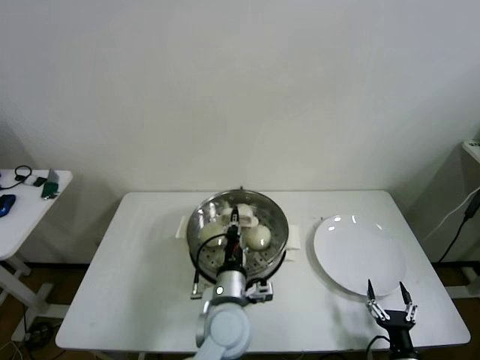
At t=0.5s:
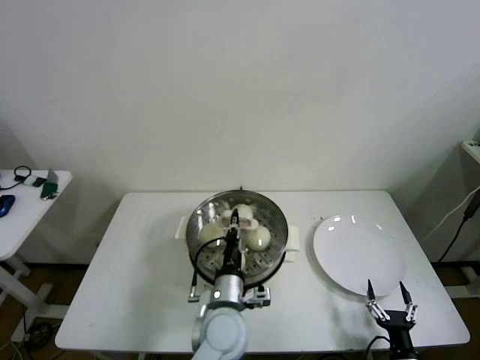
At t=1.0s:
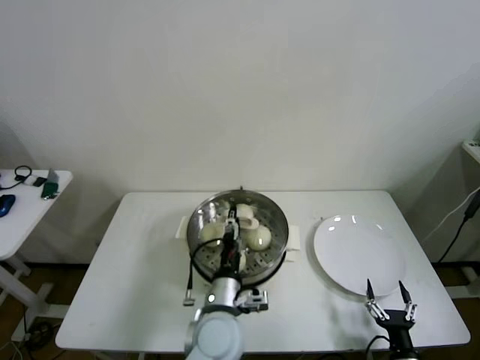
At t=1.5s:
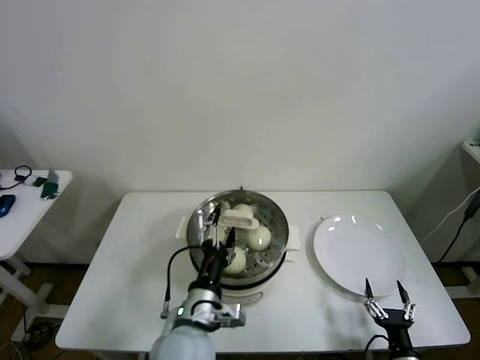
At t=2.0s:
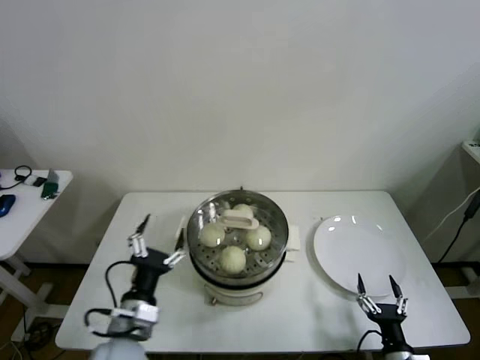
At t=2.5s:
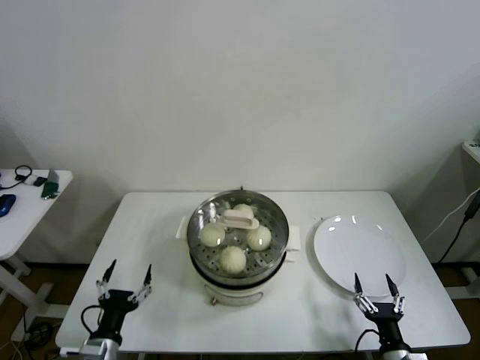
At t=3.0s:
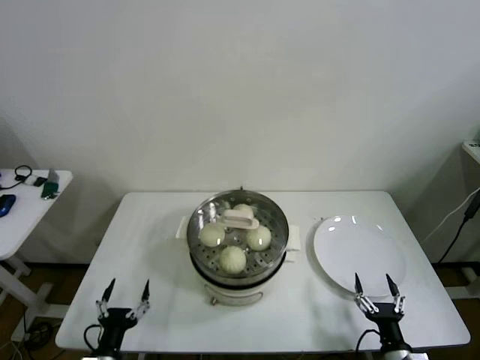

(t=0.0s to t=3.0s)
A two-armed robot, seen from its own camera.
t=0.0s - t=1.5s: The left gripper shifts approximately 5 cm to the left, and opens up.
t=1.5s - t=3.0s: The left gripper moves to the left, downward and backward, some 30 cm.
